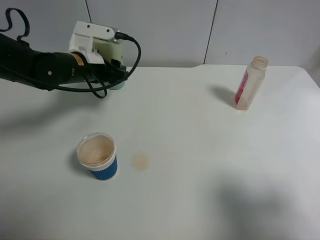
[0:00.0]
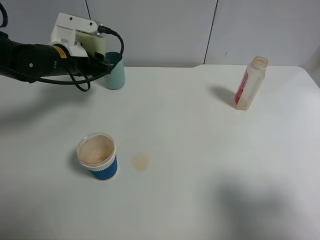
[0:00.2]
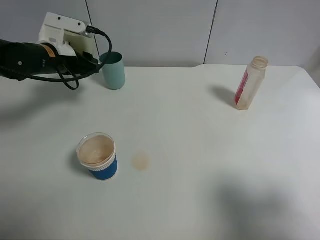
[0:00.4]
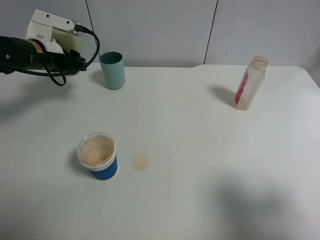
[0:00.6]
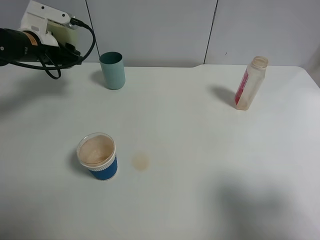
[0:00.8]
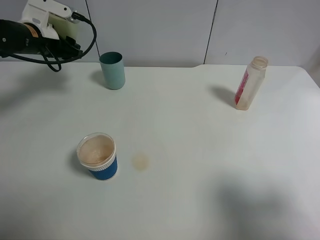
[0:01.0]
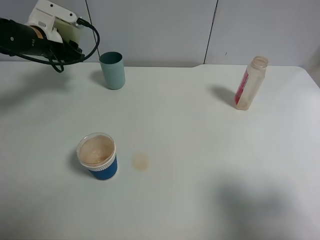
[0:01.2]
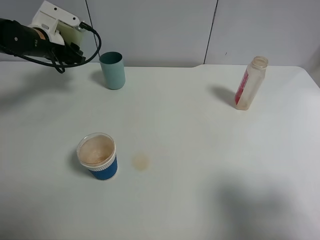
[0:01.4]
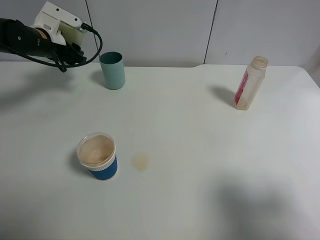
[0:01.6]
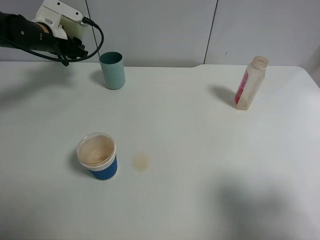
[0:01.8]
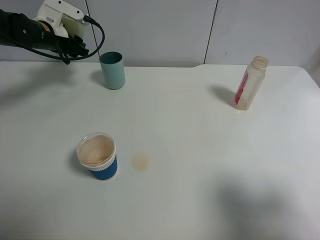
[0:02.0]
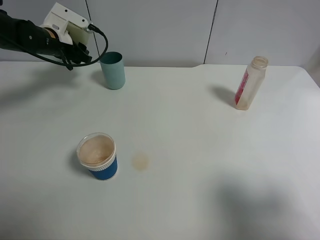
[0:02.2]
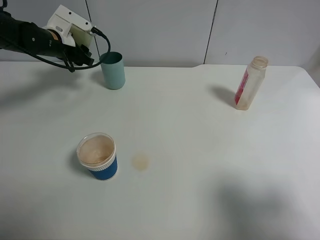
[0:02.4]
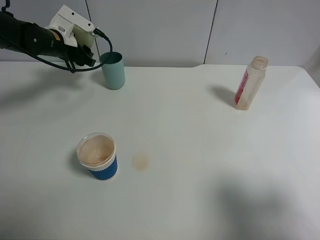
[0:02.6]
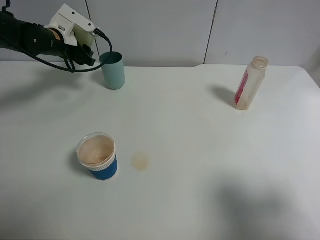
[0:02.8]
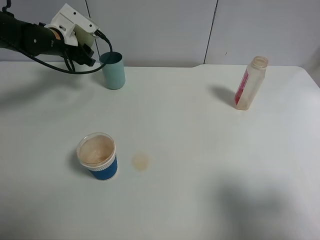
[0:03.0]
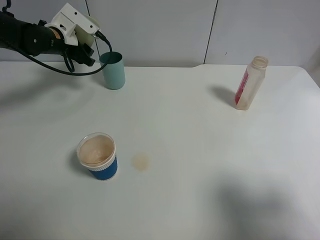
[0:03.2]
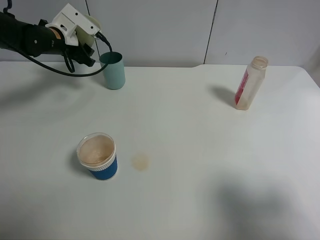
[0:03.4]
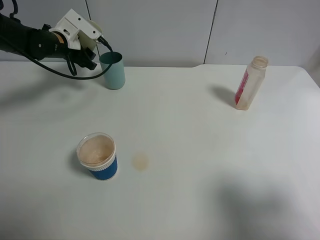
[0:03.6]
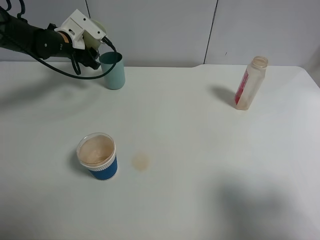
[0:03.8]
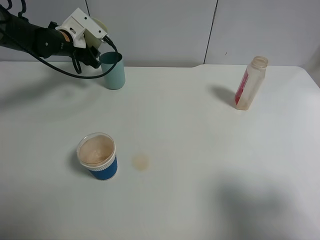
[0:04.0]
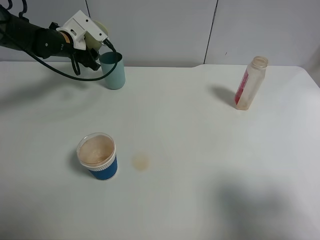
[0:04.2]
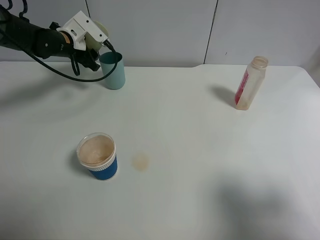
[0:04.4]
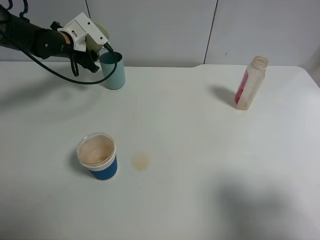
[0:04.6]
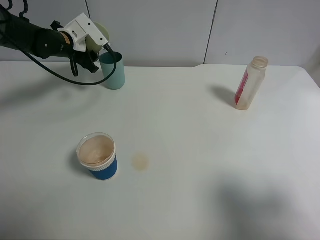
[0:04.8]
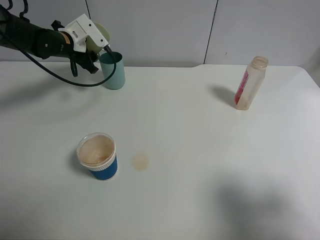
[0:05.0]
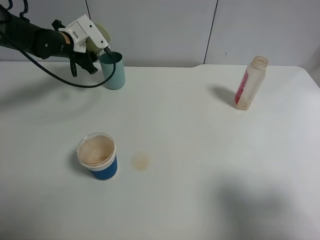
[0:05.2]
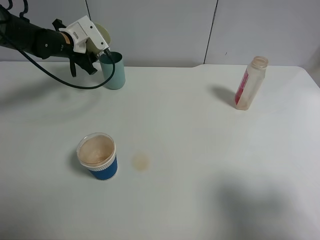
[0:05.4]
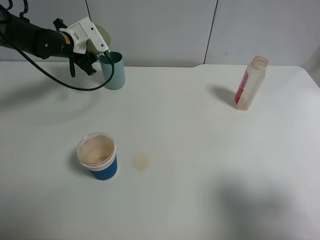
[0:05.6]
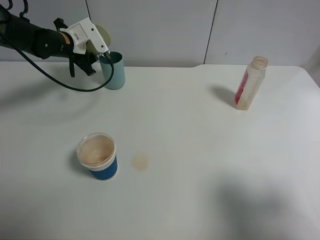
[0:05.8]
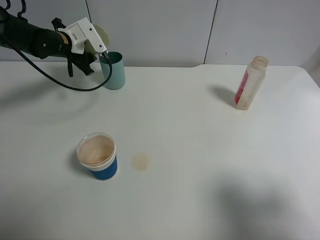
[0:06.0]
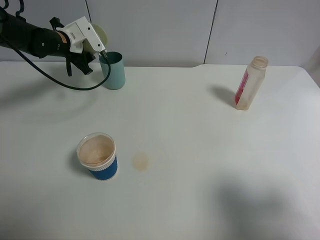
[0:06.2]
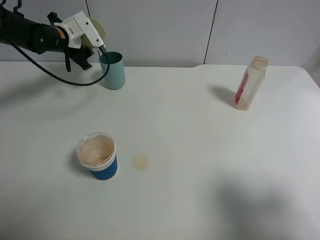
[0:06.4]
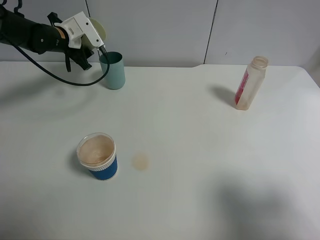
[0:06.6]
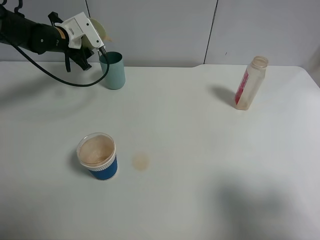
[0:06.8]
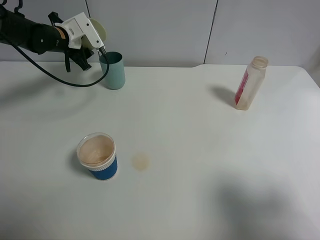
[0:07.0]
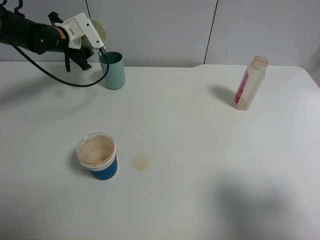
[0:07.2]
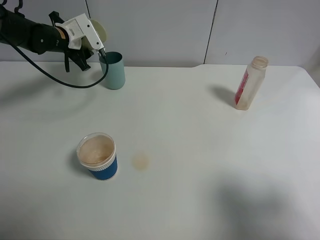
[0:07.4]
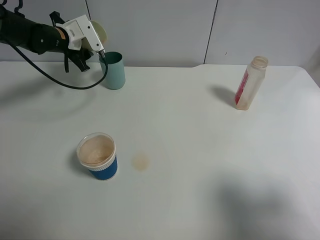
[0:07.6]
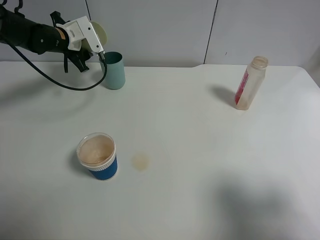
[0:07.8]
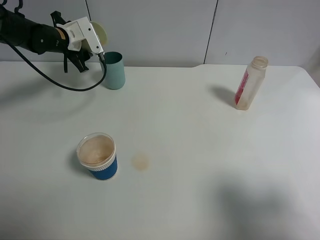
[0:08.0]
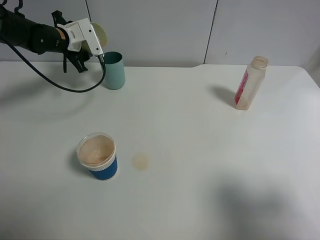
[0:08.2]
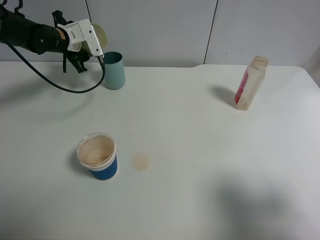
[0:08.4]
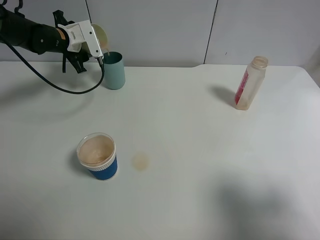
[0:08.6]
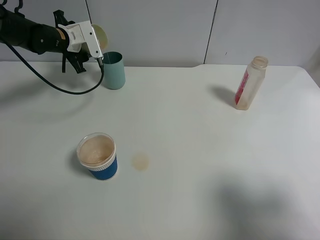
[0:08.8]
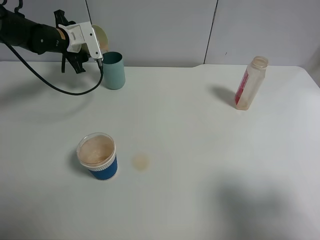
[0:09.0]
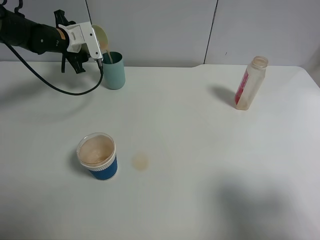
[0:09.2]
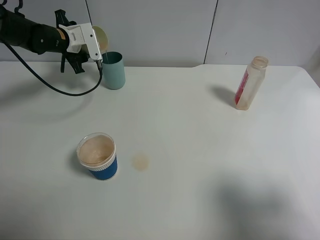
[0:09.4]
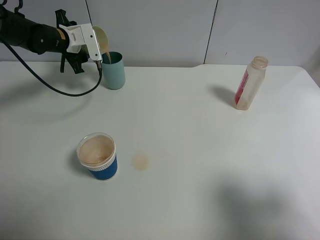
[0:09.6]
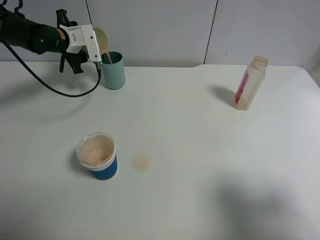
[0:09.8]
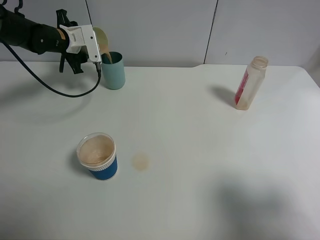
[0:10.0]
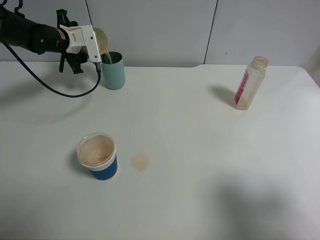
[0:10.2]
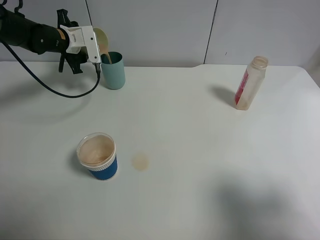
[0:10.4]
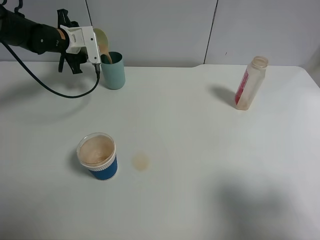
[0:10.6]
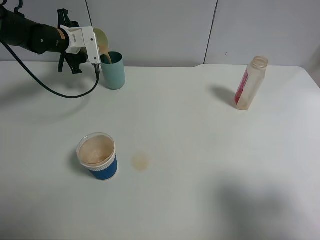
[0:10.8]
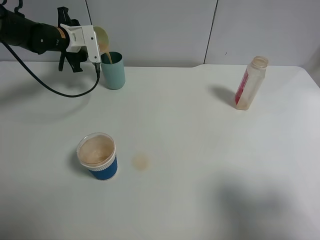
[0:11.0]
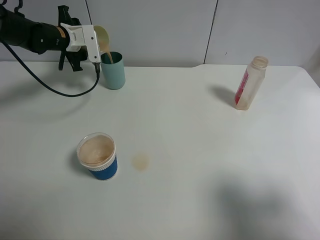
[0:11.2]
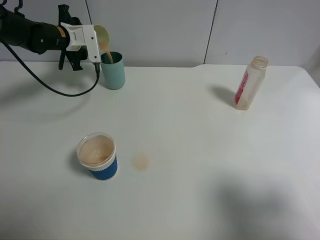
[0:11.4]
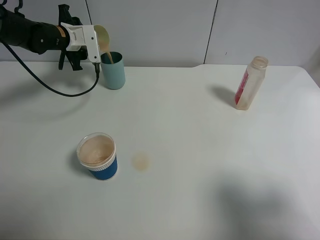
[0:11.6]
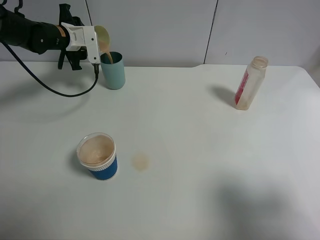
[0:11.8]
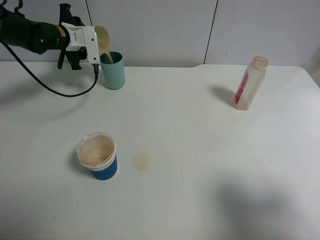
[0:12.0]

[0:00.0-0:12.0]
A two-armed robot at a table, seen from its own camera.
Task of the whole recording: use a clamp to hold the bottle of the drink, pour the beverage into a random cup, then clamp the cup containing the drink and pour the drink into another random cup.
0:00.0 to 0:01.6: The left gripper moves to the left and forward, approximately 15 cm.
0:01.6 to 0:04.4: There are only small adjustments of the grippers.
0:04.4 to 0:07.6: The grippers move only a little.
0:07.6 to 0:10.4: The grippers make only small movements.
0:10.4 to 0:12.0: The grippers move only a little.

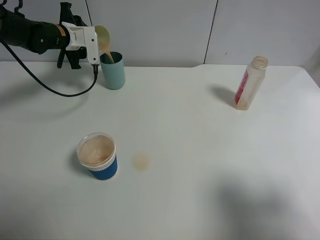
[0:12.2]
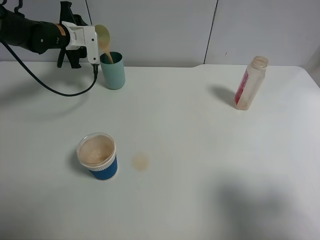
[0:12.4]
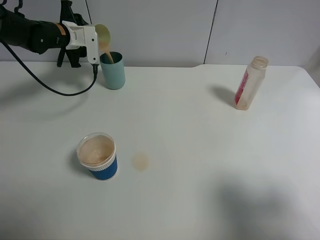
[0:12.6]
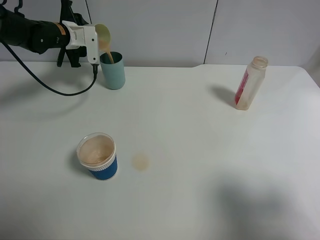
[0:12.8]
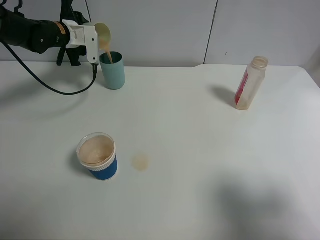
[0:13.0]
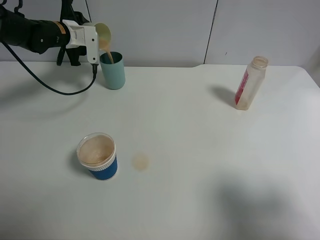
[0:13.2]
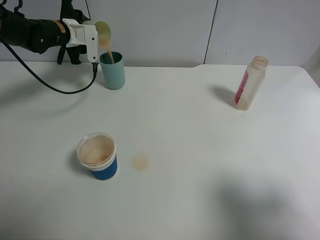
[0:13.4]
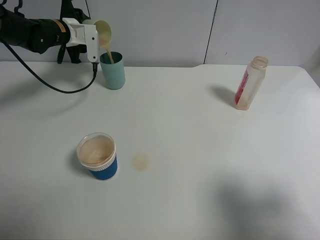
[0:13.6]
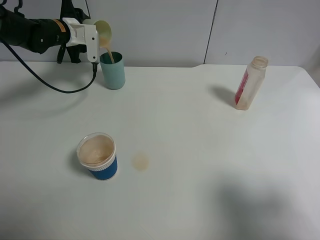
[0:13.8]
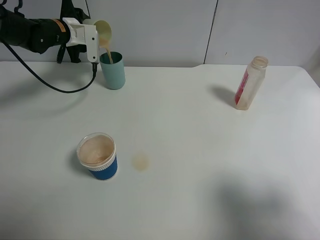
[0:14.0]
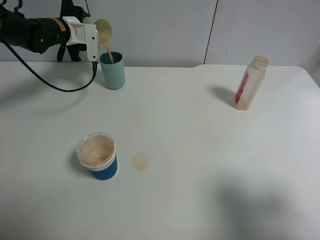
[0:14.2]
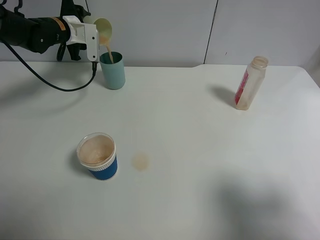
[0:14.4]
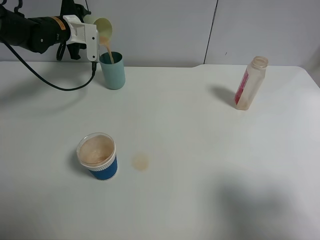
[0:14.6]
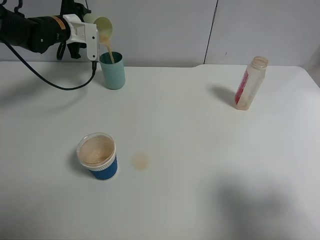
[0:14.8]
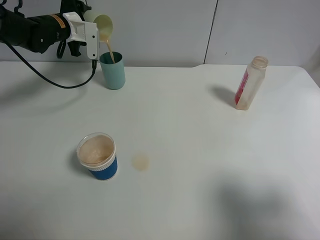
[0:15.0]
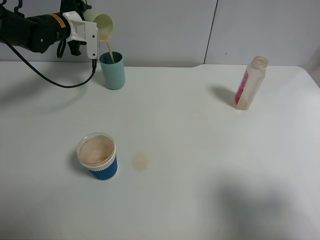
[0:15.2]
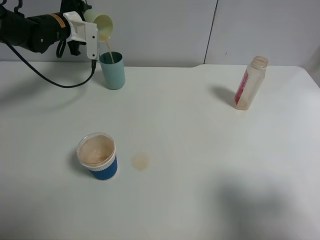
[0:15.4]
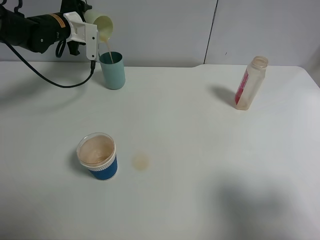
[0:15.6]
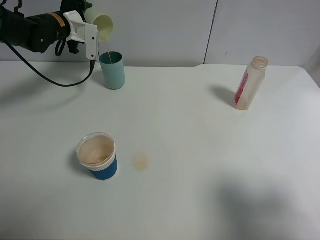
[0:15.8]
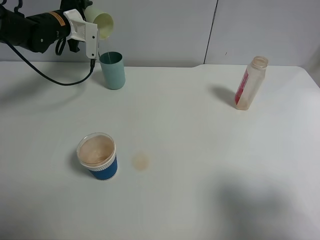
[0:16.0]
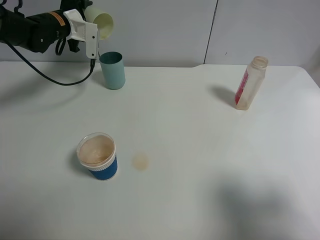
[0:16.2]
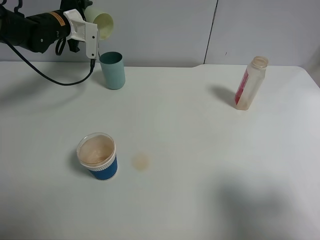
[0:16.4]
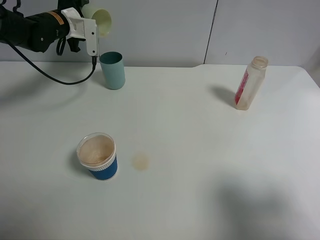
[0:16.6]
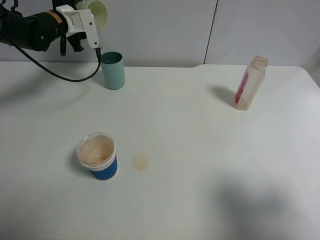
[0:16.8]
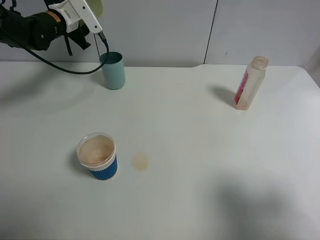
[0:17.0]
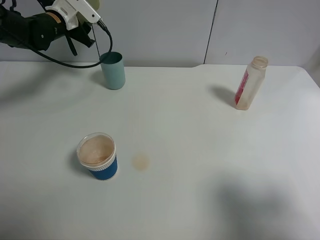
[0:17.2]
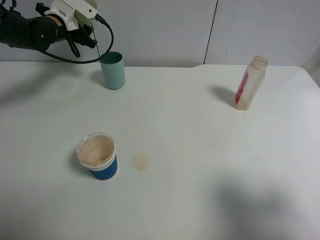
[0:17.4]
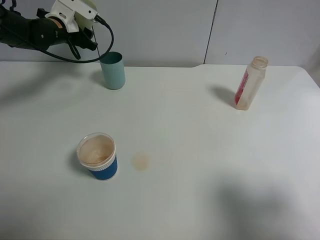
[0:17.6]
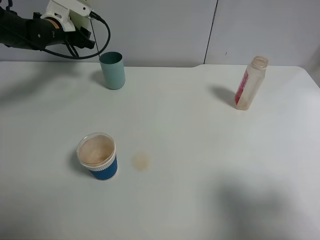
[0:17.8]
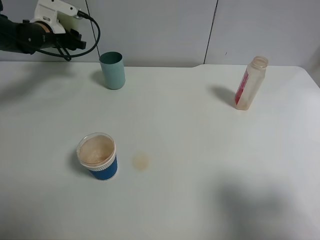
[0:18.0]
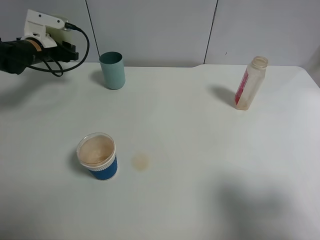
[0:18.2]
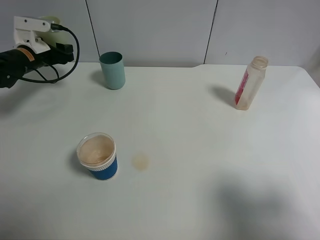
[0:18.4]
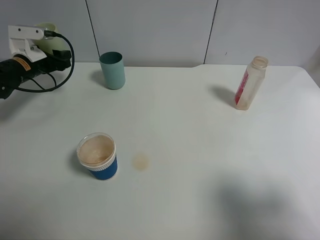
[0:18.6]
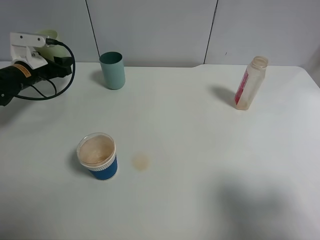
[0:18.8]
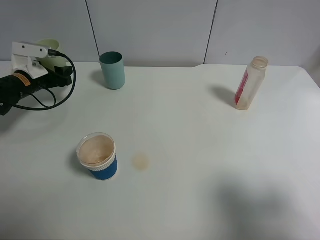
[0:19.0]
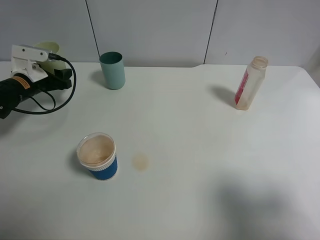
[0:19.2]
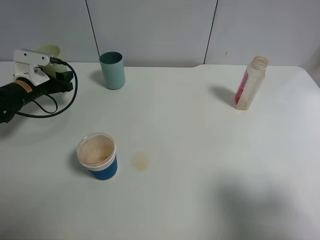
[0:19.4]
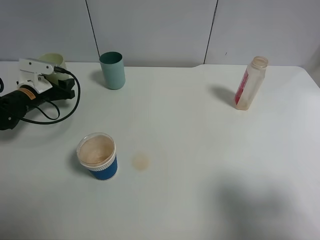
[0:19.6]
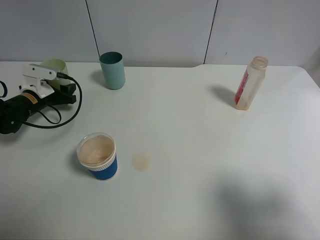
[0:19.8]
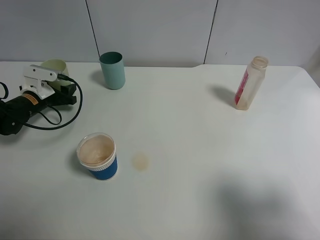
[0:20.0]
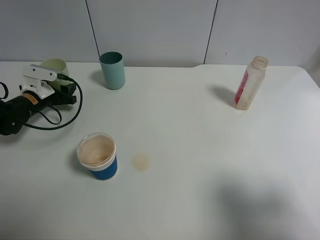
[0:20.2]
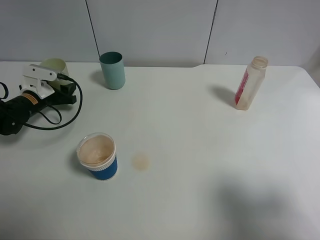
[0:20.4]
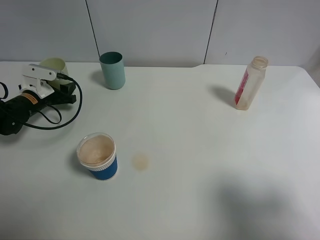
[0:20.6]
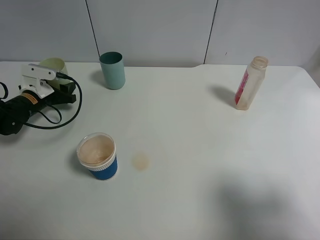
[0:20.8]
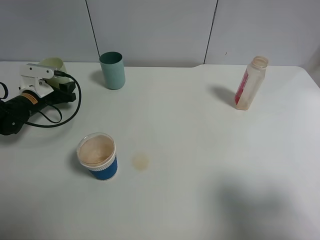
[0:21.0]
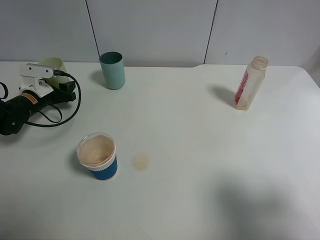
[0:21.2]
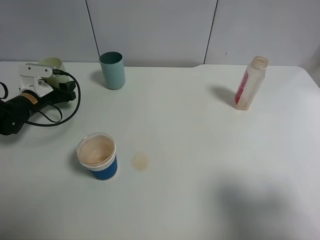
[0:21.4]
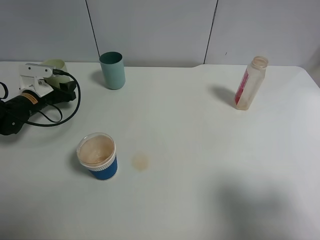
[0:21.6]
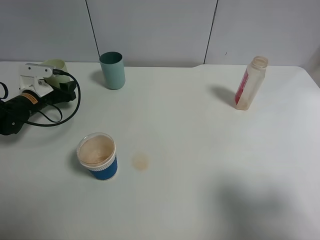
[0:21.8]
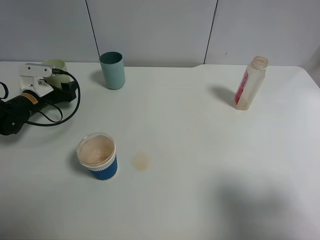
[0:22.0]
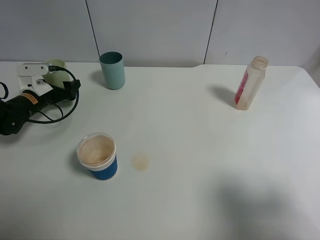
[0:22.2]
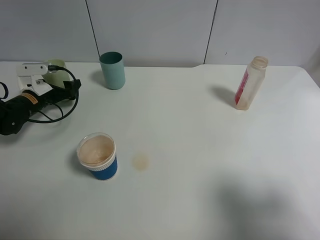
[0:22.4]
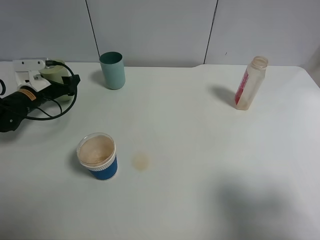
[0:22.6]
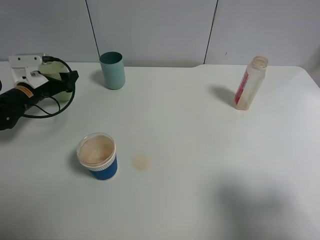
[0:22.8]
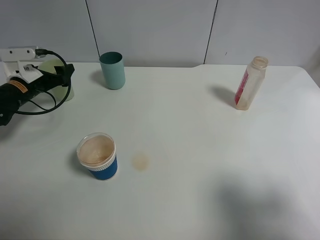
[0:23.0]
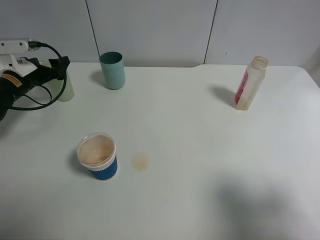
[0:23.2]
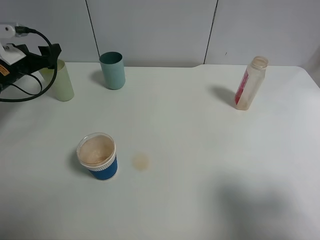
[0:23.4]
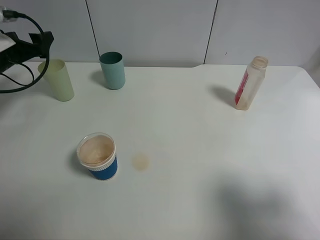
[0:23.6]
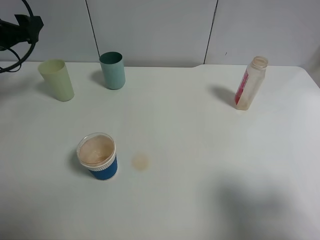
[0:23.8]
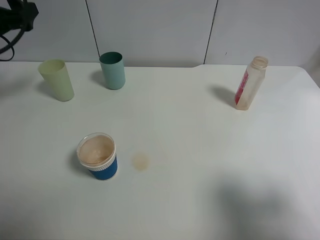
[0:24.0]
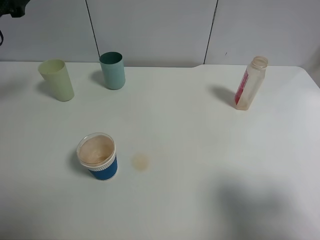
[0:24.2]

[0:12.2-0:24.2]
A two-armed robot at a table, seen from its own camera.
Task of the whole recording: use a clamp to hold the bottle of the drink, pour the beverage into a random cup, then clamp the cup containing the drink and pour the drink into another random cup.
Step, 0:12.2 to 0:17.2: Pour the drink into the blue plastic cup with left gripper.
Step, 0:17.4 to 0:22.4: Place the green plastic cup on the table with left gripper.
0:12.2 to 0:15.2: The grippers make only small movements.
0:15.2 to 0:16.6: The grippers make only small movements.
0:16.6 to 0:18.2: The left gripper travels to the left by roughly 5 cm.
0:18.2 to 0:19.8: The left gripper travels downward and backward by about 15 cm.
0:19.8 to 0:21.2: The two grippers keep their place.
0:21.2 to 0:22.6: The left gripper opens its fingers.
0:22.6 to 0:24.2: The left gripper travels upward by approximately 25 cm.
